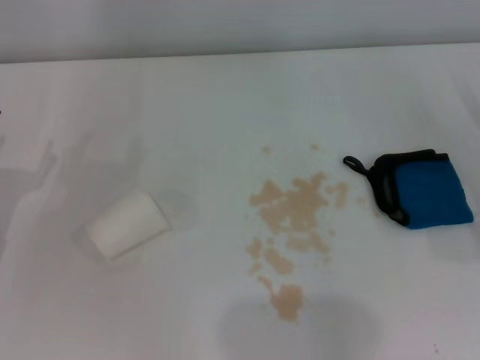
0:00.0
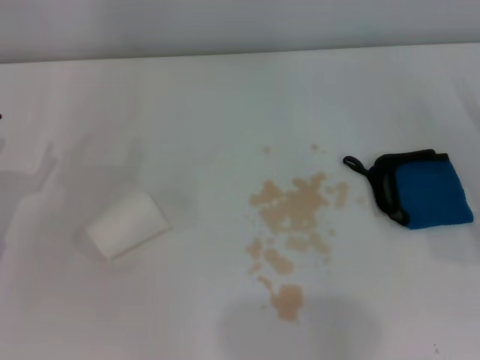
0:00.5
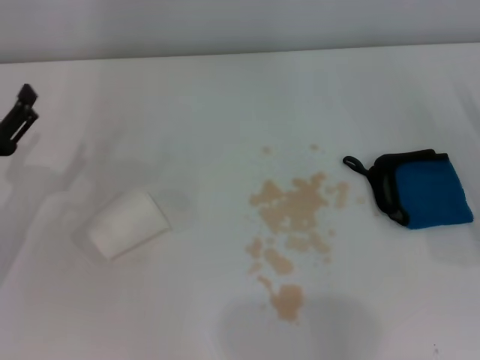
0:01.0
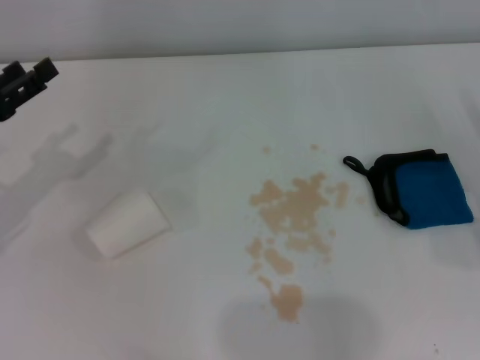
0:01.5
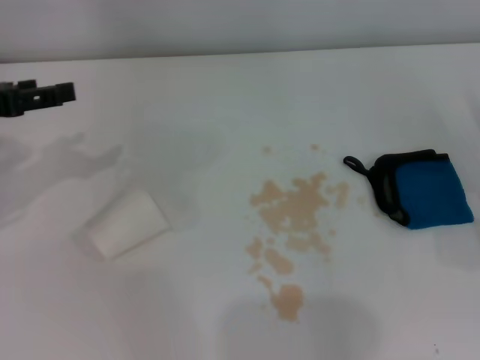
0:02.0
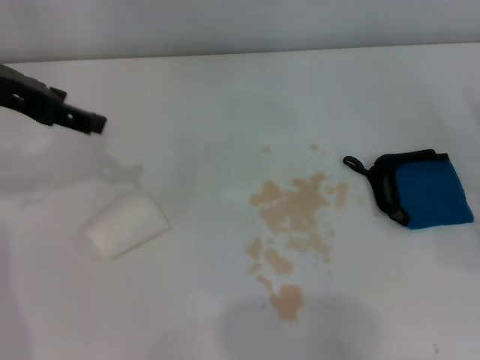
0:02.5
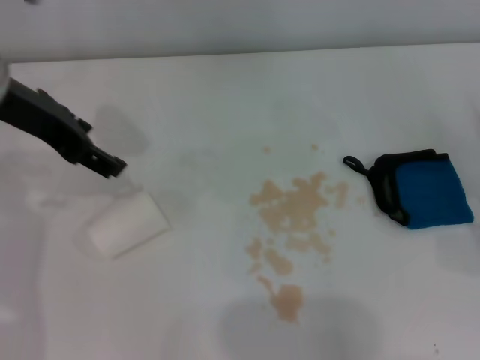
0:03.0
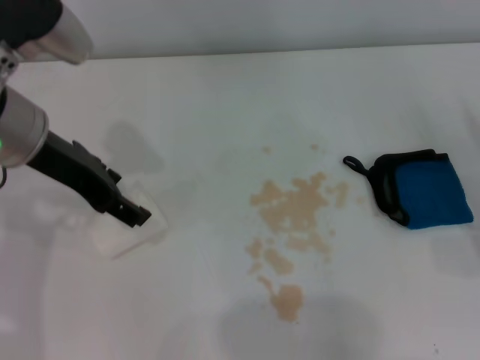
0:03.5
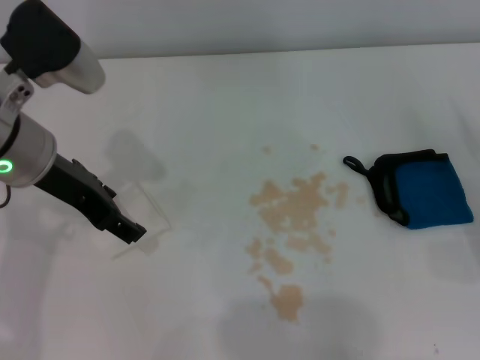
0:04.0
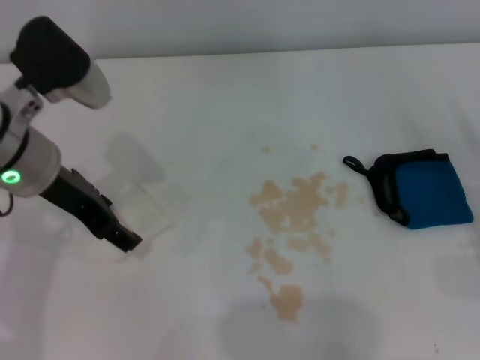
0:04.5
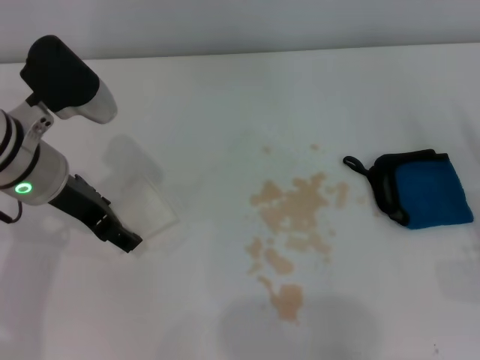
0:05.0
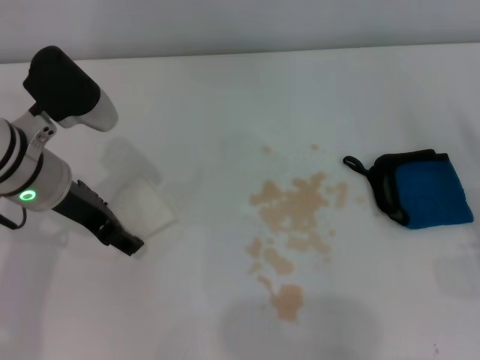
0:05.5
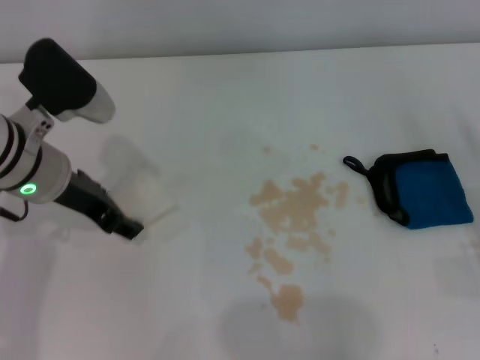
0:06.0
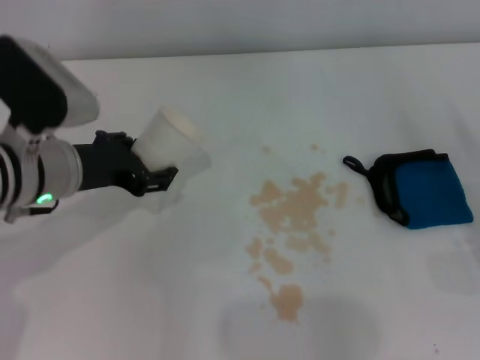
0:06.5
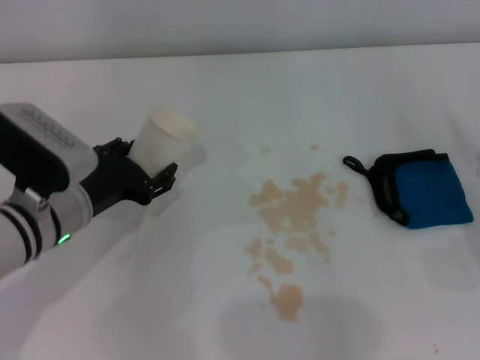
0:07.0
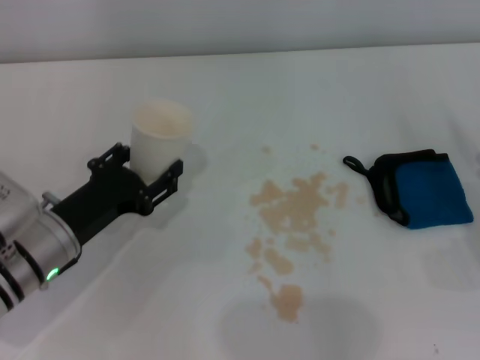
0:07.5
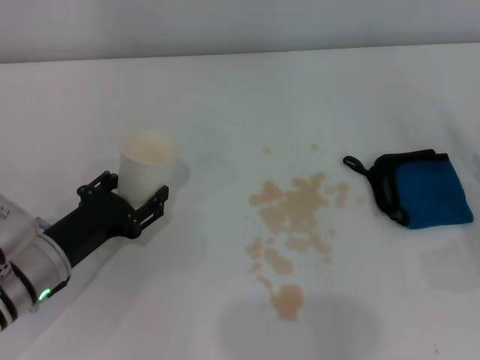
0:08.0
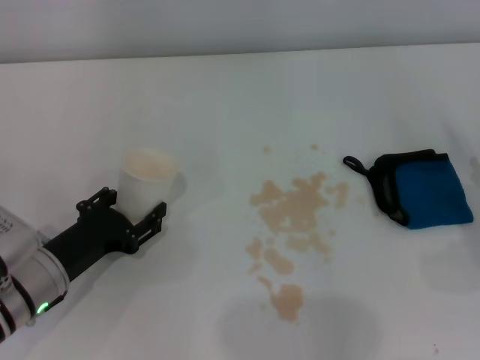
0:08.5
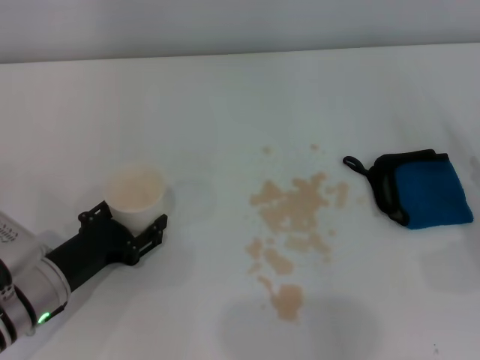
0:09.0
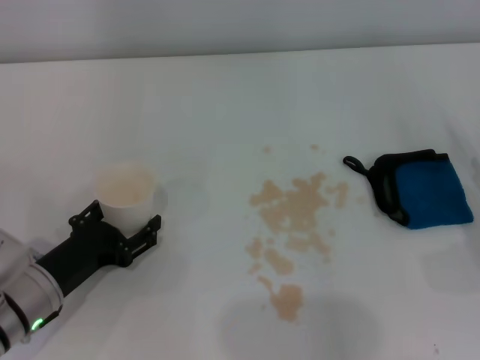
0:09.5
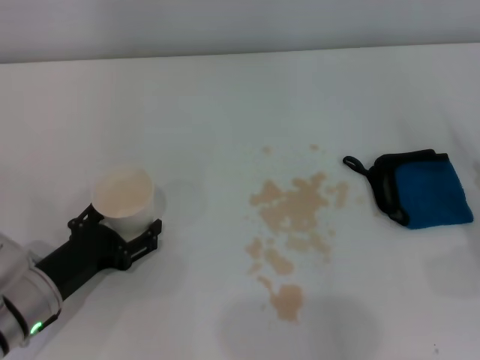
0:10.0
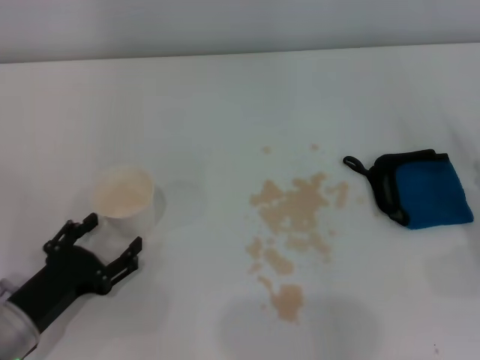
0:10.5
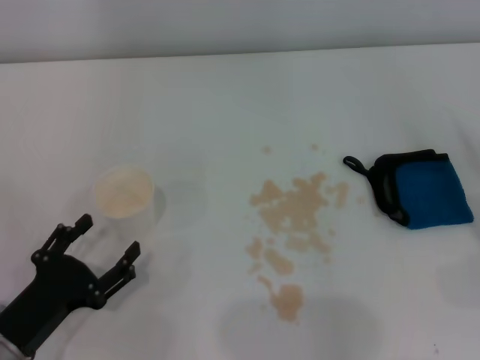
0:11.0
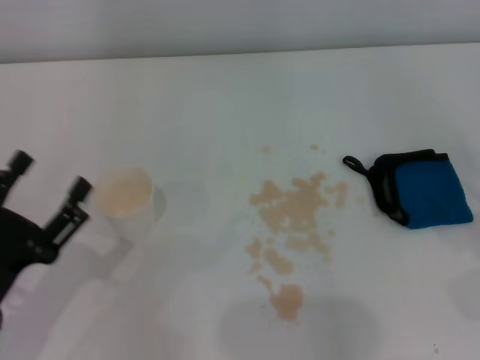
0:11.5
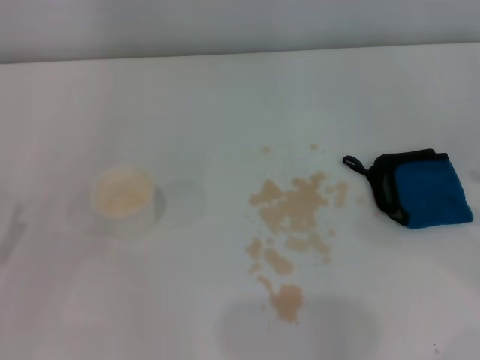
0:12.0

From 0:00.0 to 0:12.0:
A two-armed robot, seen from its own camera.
Step, from 0:00.0 to 0:05.5: Grasp the paper cup with the left gripper.
Step, from 0:06.0 to 0:09.5: Stand the paper cup upright with the left gripper.
From 0:00.0 to 0:02.0: The left gripper is displaced upward and forward by some 15 cm.
From 0:02.0 to 0:04.0: The left gripper travels to the right by approximately 10 cm.
From 0:04.0 to 0:06.0: The left gripper goes approximately 5 cm downward, and closes up.
From 0:06.0 to 0:08.0: The left gripper goes about 15 cm downward and backward.
From 0:08.0 to 0:10.0: The left gripper opens up.
From 0:10.0 to 0:12.0: The left gripper heads to the left and backward, covering roughly 10 cm.

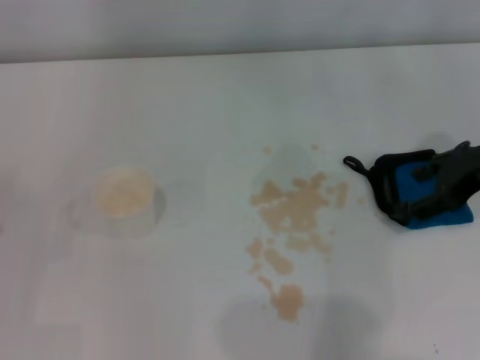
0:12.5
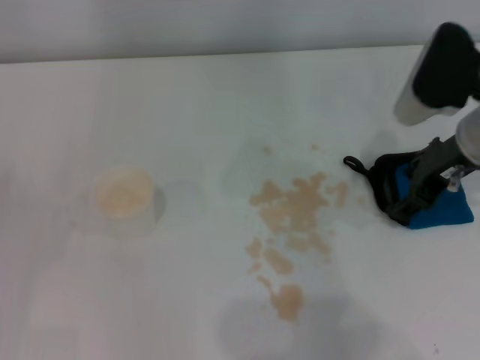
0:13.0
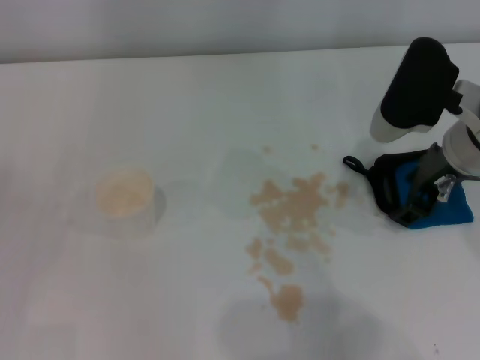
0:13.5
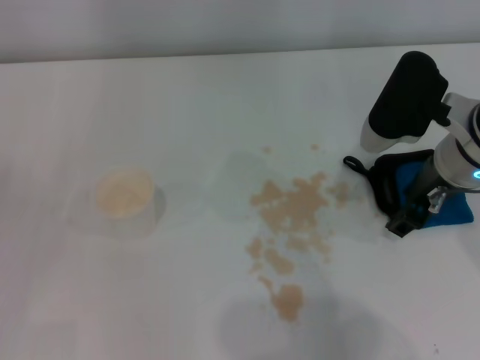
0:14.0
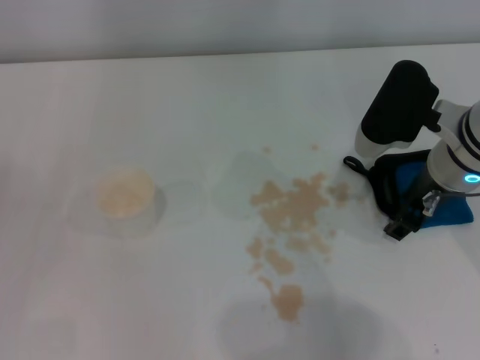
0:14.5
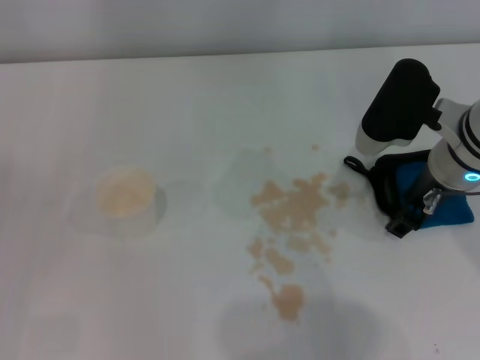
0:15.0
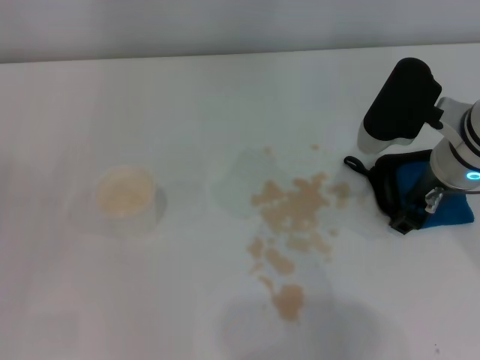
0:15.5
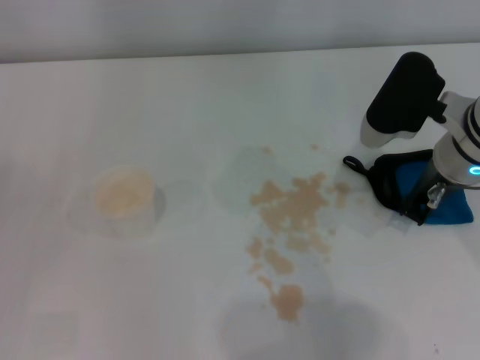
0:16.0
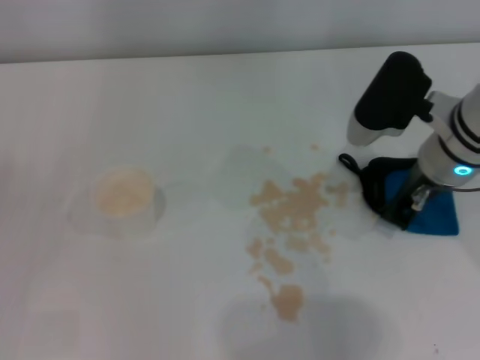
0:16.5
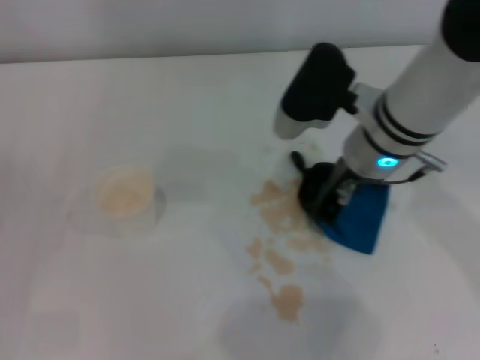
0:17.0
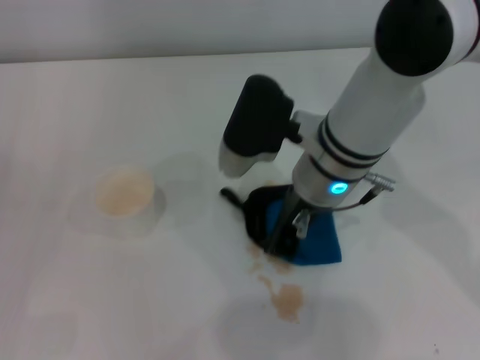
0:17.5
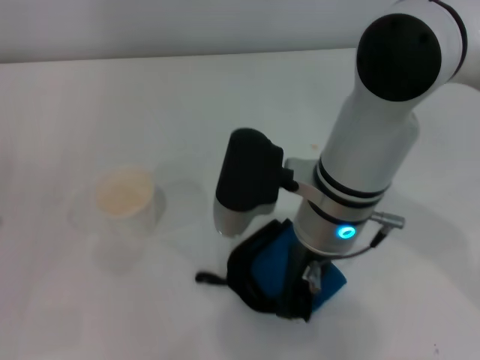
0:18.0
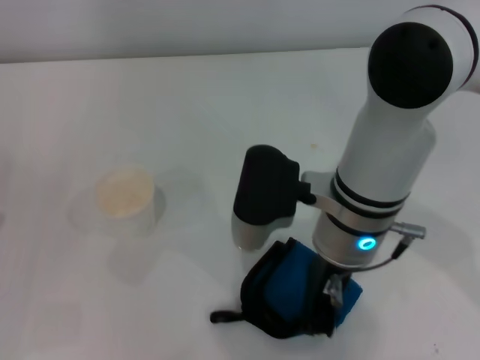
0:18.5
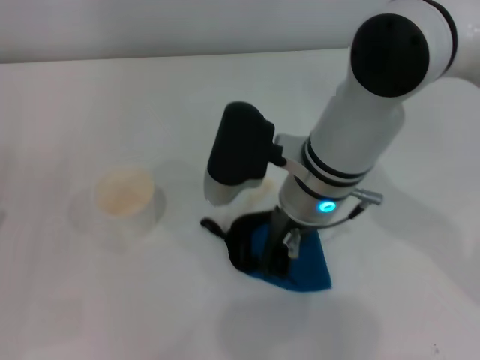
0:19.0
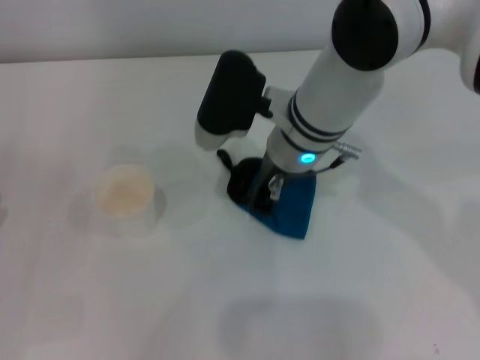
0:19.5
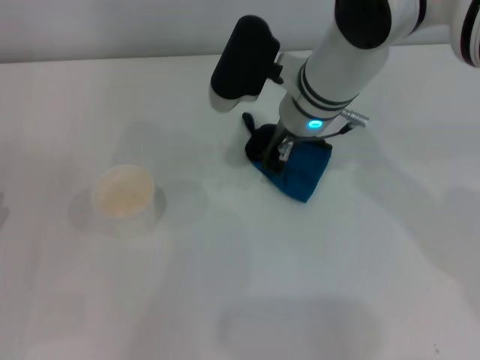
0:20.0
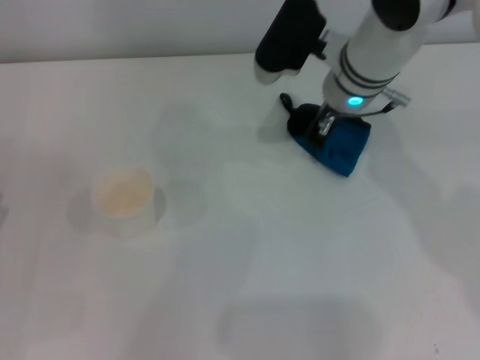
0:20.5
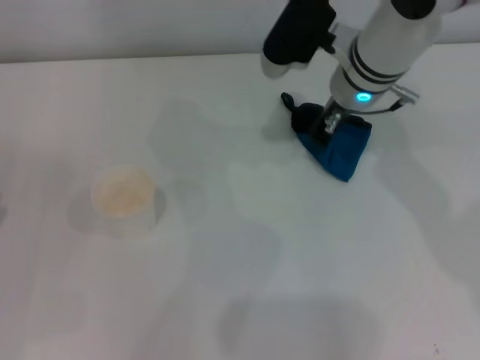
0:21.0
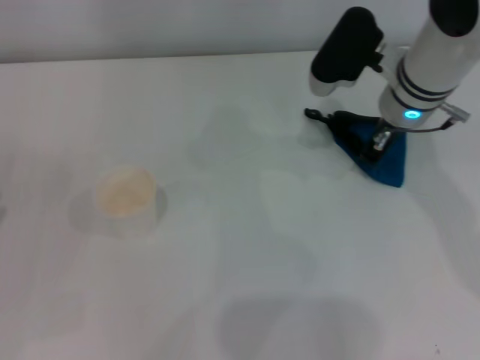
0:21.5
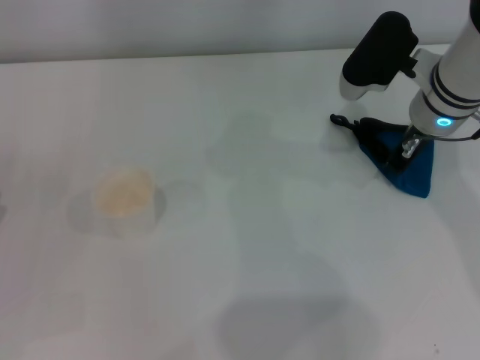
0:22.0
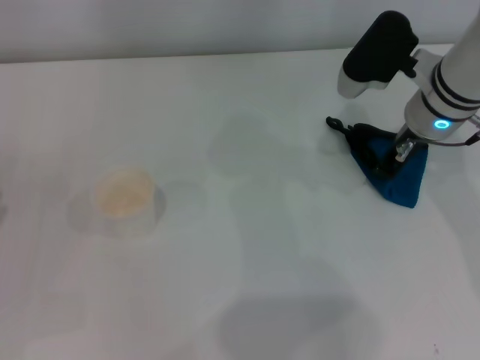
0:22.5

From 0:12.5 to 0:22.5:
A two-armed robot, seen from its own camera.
Step, from 0:12.5 to 0:16.0: Grasp the rag with the right gripper.
Step, from 0:16.5 to 0:21.0: Wipe the stains off the table with the right gripper.
From 0:12.5 to 0:14.5: The right gripper travels to the left by roughly 10 cm.
From 0:14.5 to 0:16.5: The right gripper closes.
From 0:16.5 to 0:18.5: The right gripper goes approximately 10 cm to the left.
From 0:18.5 to 0:20.5: The right gripper goes roughly 15 cm forward.
From 0:20.5 to 0:22.5: The right gripper moves to the right, roughly 5 cm.

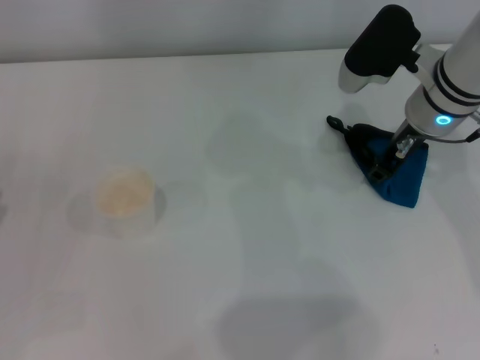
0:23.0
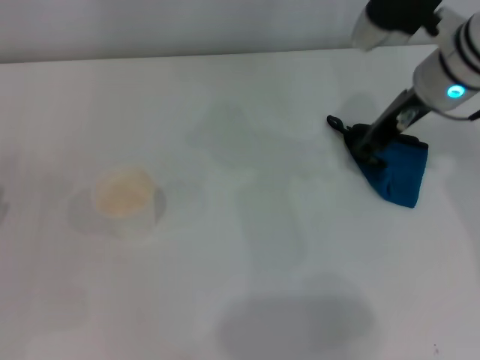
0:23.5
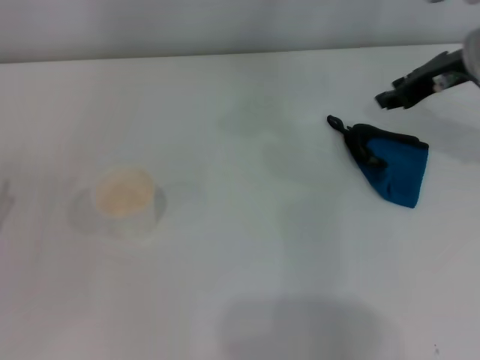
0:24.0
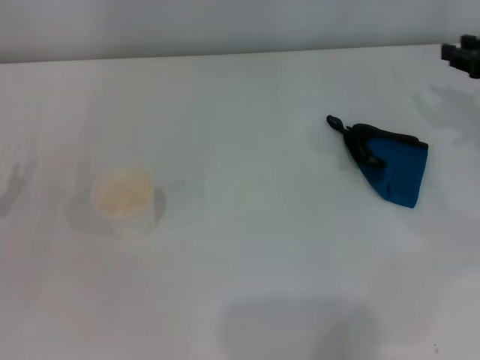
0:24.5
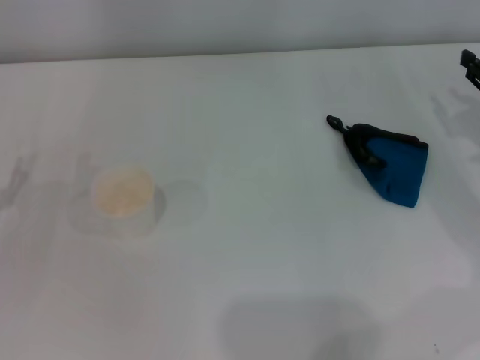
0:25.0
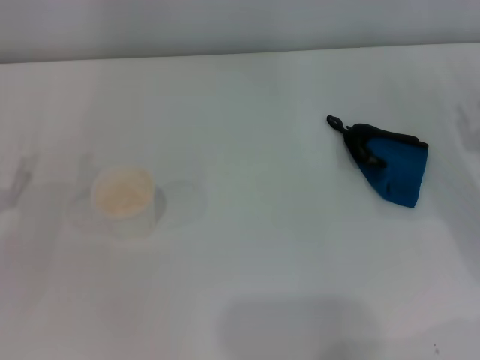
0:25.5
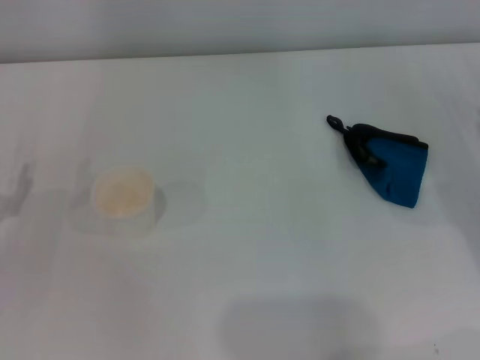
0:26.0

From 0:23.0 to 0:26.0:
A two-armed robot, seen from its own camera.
From 0:23.0 to 0:24.5: The right gripper shifts about 15 cm to the right.
From 0:24.5 to 0:26.0: The right gripper travels downward and backward by approximately 10 cm.
